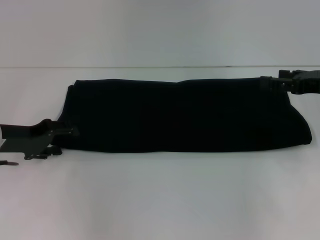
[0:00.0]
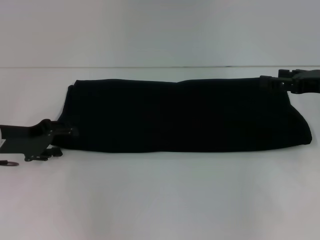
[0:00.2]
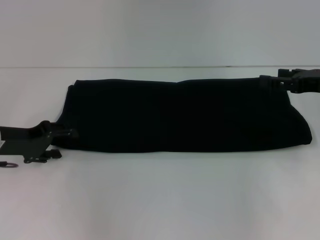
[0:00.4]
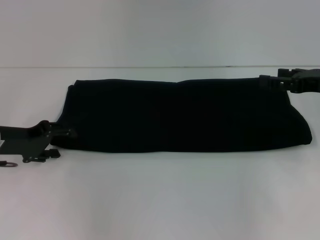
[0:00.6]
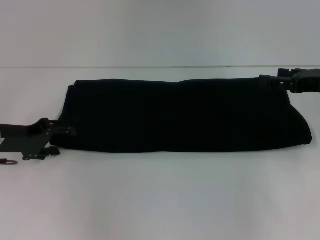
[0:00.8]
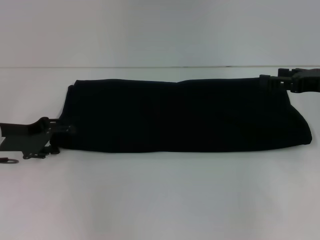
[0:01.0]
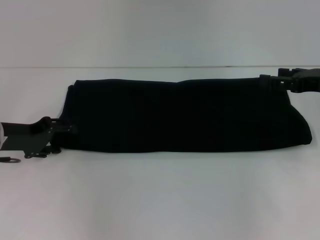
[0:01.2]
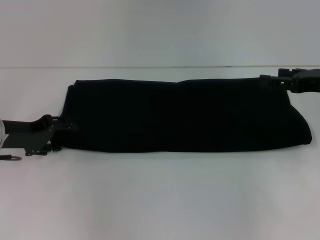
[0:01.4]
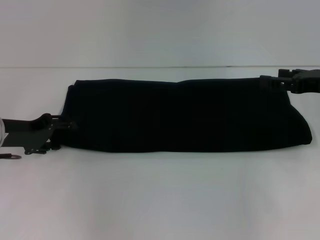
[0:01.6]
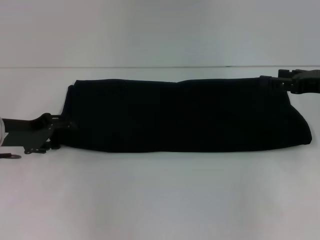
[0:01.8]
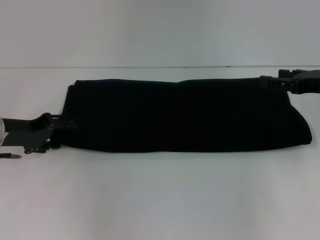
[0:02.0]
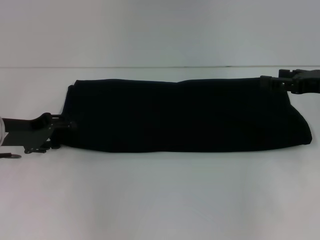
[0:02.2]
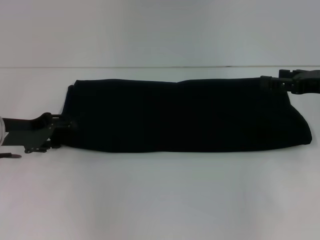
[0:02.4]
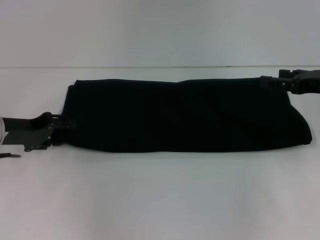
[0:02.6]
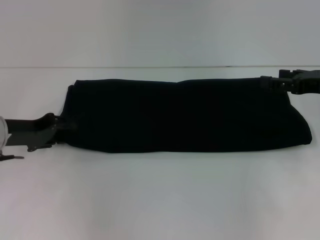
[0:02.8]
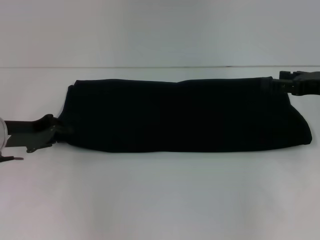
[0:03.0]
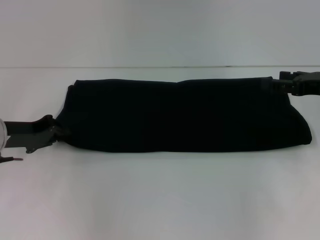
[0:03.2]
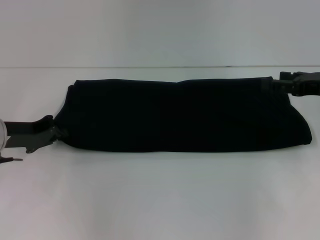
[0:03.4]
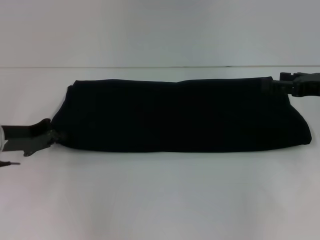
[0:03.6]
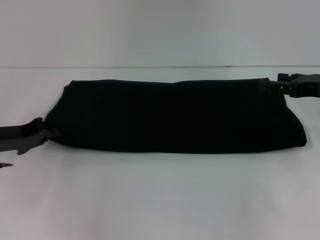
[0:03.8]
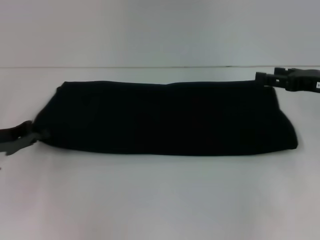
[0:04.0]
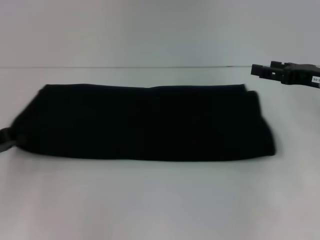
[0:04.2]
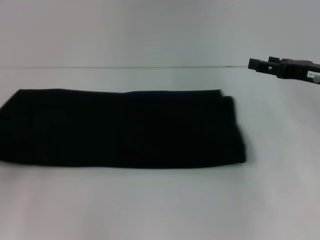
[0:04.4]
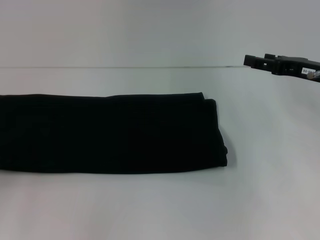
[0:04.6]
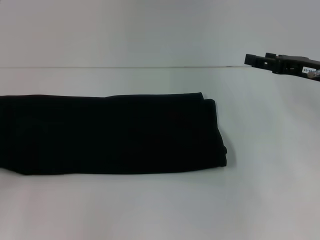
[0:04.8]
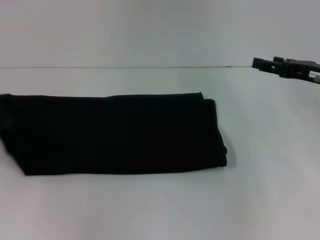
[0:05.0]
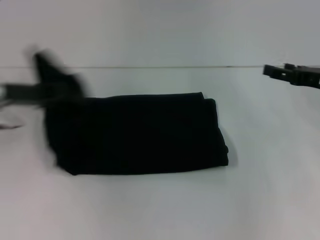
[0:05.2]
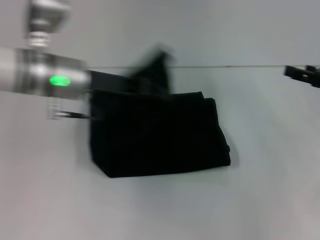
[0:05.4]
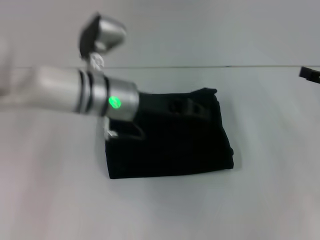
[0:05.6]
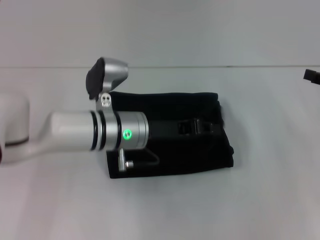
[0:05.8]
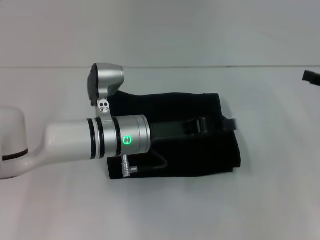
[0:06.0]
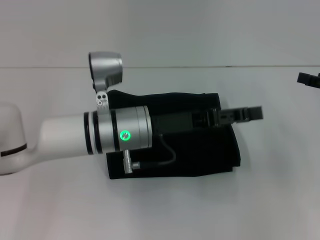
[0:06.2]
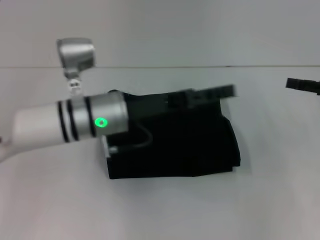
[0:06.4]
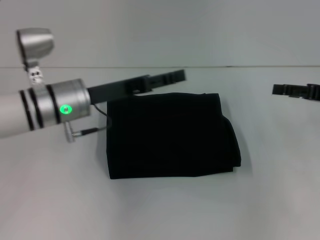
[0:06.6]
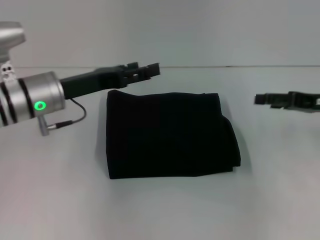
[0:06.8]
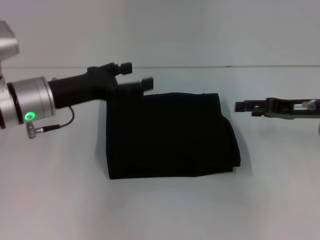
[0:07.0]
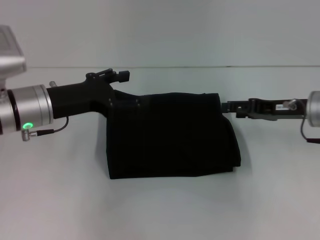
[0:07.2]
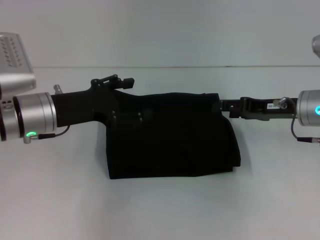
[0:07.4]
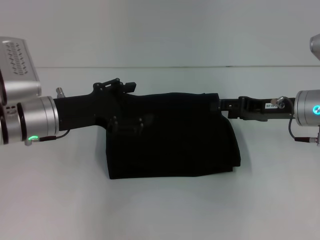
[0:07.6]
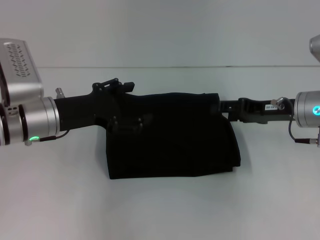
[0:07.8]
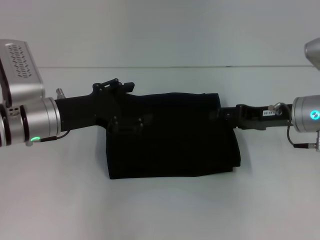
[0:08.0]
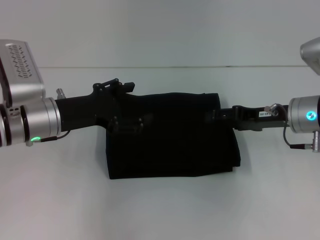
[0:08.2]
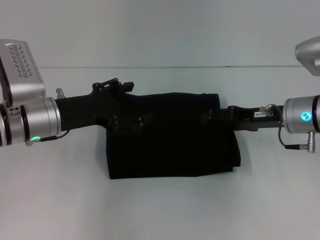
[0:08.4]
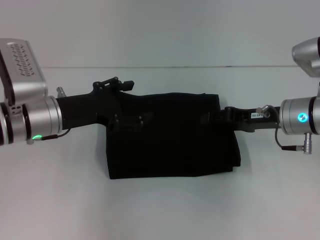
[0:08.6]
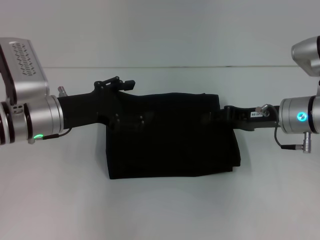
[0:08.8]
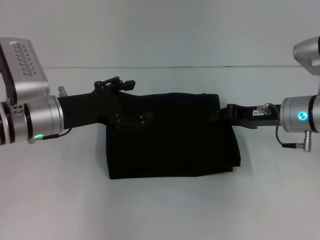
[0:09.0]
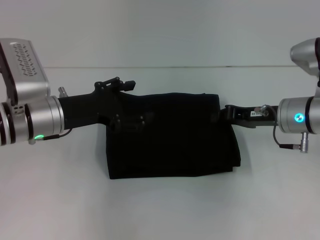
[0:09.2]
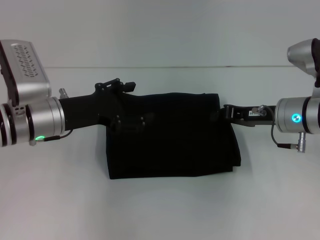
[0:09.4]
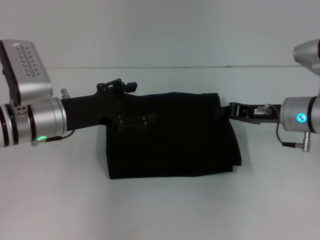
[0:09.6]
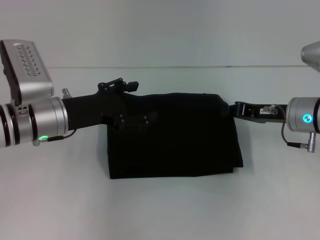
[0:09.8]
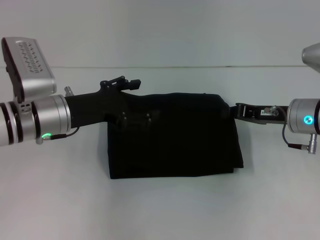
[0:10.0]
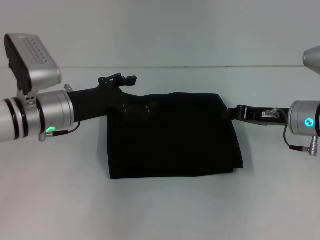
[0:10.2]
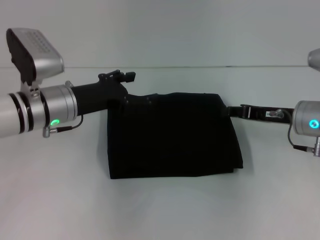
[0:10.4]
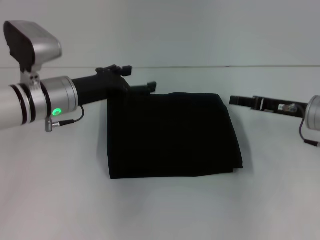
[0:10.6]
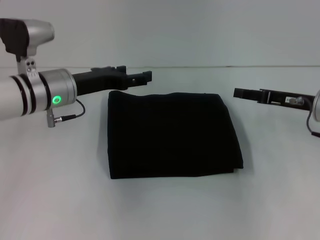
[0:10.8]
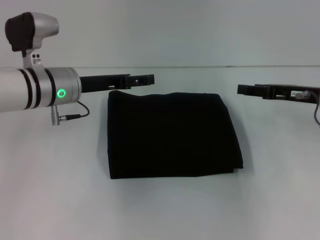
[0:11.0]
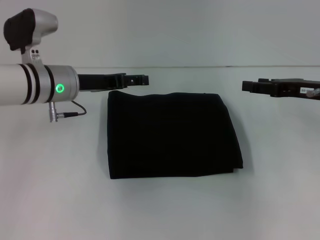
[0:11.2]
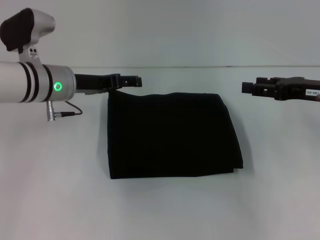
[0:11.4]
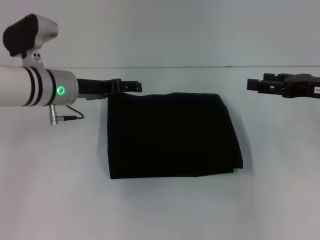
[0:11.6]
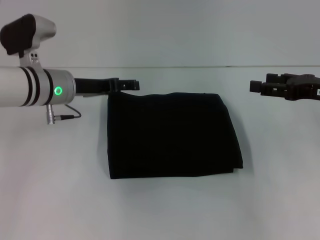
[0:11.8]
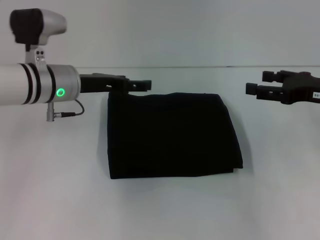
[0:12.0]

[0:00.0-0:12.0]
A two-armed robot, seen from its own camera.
Step, 0:00.0 to 0:06.4: Fold the clothes with your left hand.
0:00.0 to 0:03.0: Both grippers stay about where they are.
0:03.0 to 0:04.4: The left gripper shifts some 10 cm to the left and backward, and closes.
0:04.4 to 0:06.0: The right gripper travels to the right by roughly 10 cm; the left gripper travels to the right by approximately 30 cm.
0:06.0 to 0:07.6: Both grippers travel together to the left, some 15 cm. The left gripper opens.
0:07.6 to 0:09.0: There are only small adjustments of the grippers.
0:09.0 to 0:10.4: The right gripper closes its fingers.
0:10.4 to 0:12.0: The right gripper moves to the right and upward, roughly 10 cm, and opens.

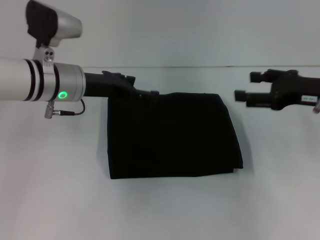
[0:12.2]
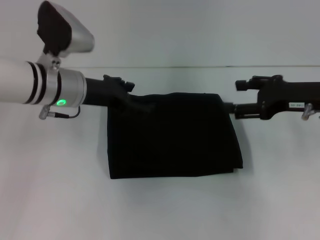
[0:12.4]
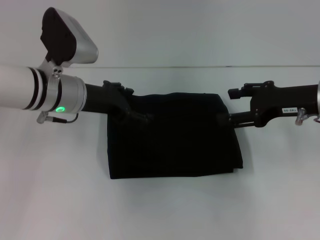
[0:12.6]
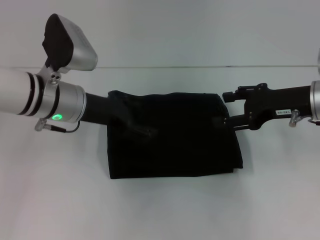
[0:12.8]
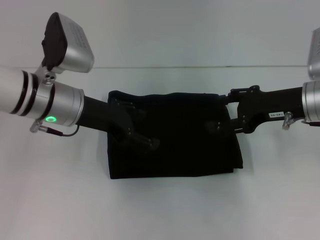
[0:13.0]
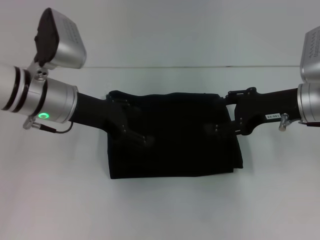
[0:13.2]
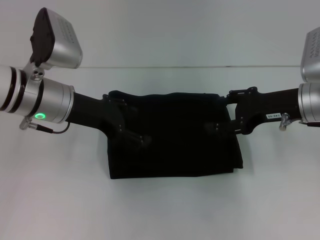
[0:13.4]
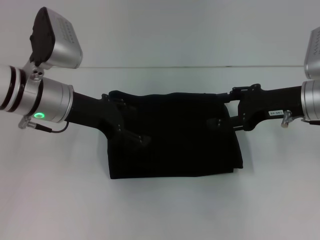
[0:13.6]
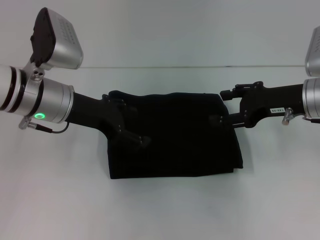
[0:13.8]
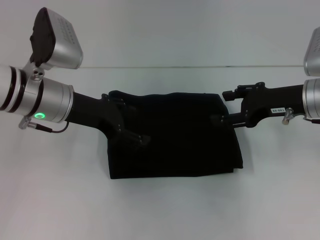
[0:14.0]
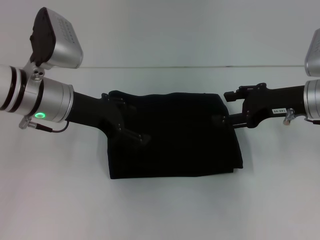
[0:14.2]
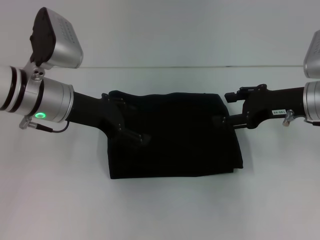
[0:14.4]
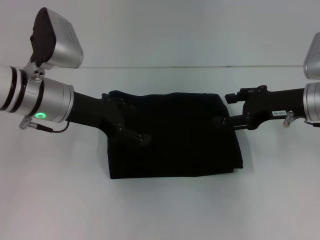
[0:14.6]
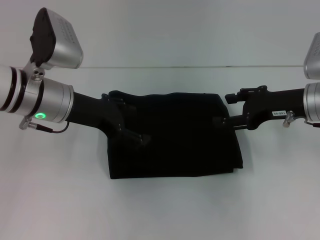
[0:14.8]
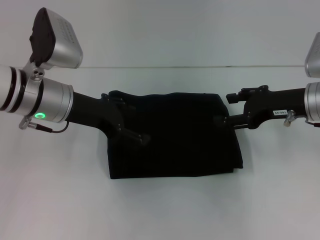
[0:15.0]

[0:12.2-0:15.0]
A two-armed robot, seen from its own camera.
0:13.6 to 0:15.0: The grippers stay close to where they were, moving slightly.

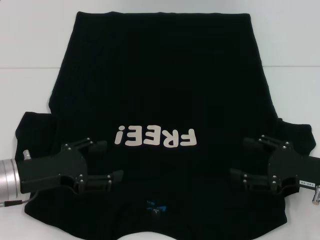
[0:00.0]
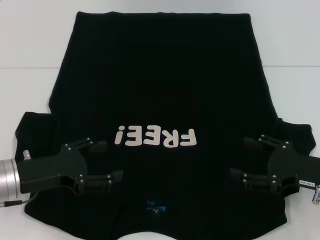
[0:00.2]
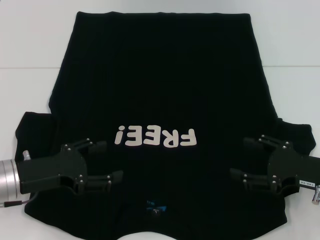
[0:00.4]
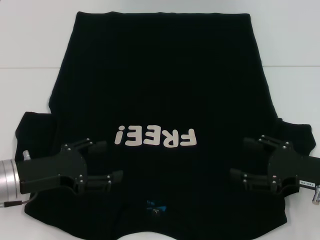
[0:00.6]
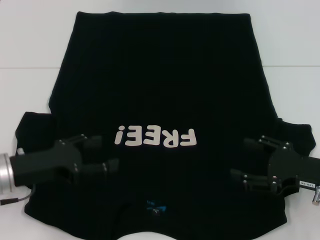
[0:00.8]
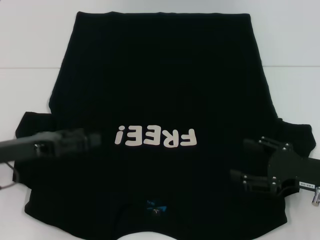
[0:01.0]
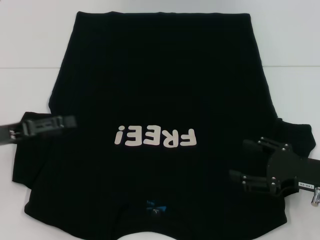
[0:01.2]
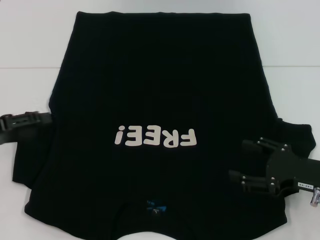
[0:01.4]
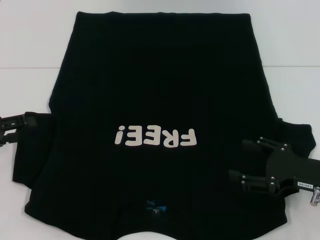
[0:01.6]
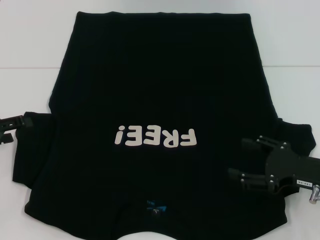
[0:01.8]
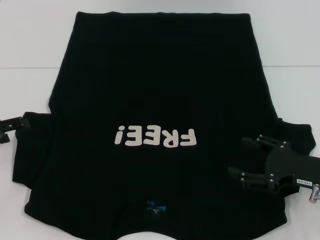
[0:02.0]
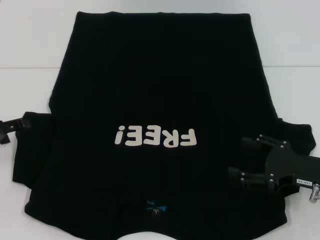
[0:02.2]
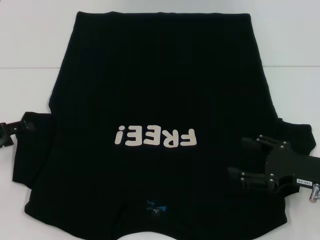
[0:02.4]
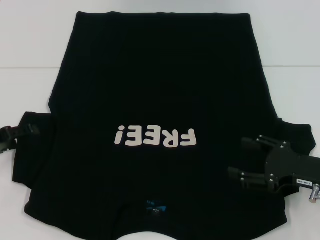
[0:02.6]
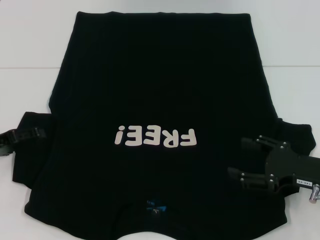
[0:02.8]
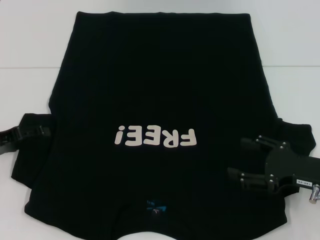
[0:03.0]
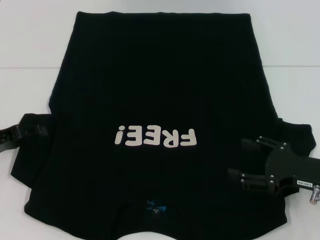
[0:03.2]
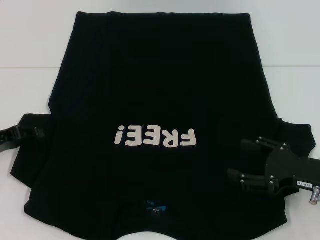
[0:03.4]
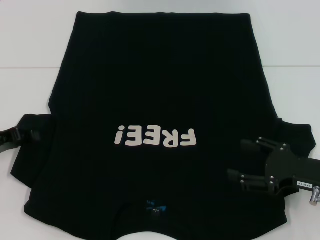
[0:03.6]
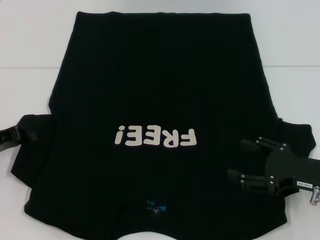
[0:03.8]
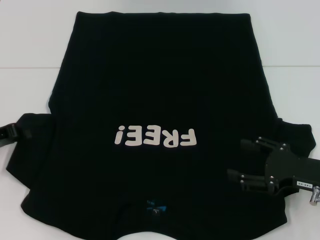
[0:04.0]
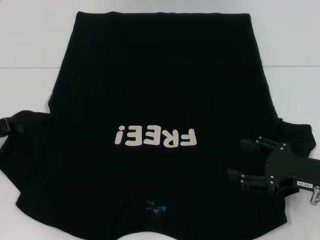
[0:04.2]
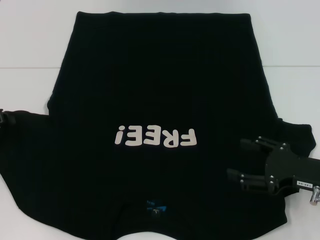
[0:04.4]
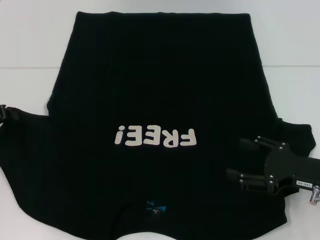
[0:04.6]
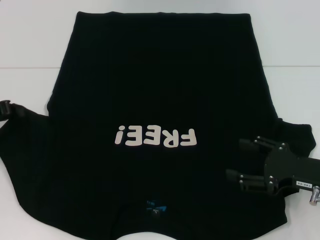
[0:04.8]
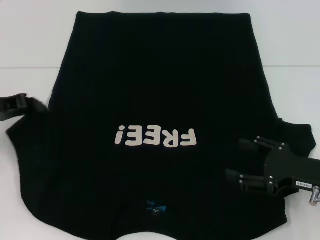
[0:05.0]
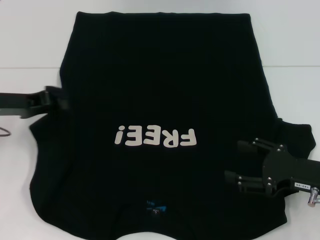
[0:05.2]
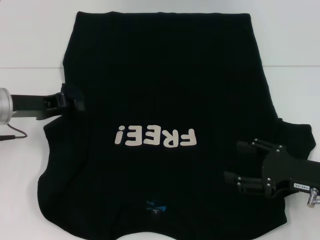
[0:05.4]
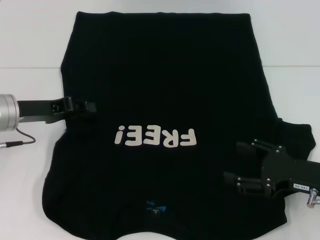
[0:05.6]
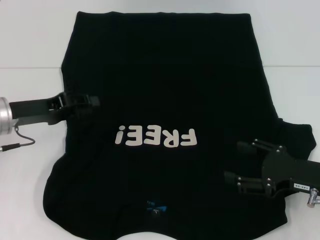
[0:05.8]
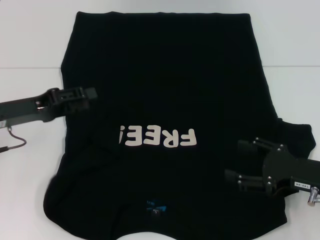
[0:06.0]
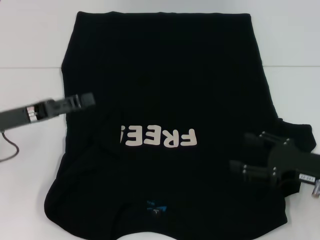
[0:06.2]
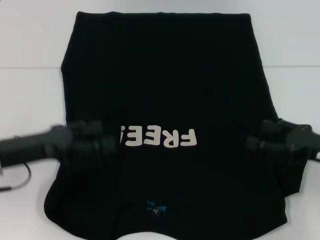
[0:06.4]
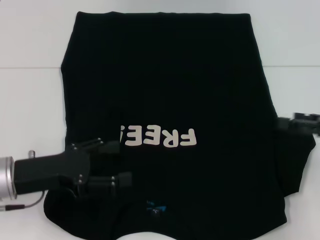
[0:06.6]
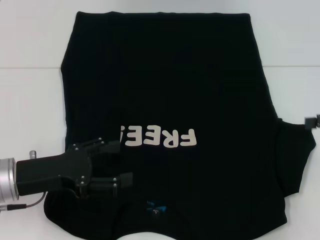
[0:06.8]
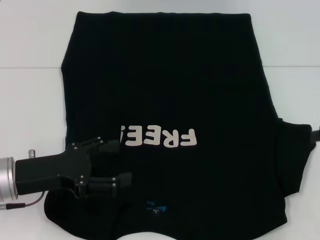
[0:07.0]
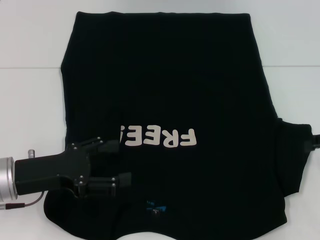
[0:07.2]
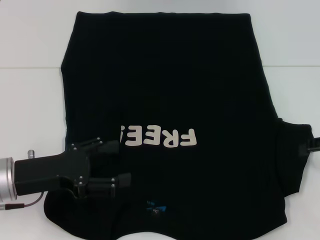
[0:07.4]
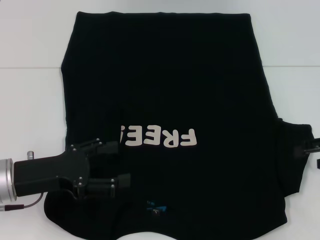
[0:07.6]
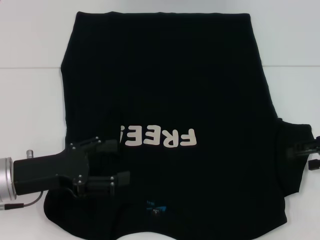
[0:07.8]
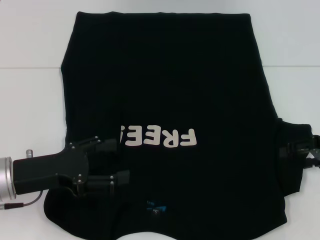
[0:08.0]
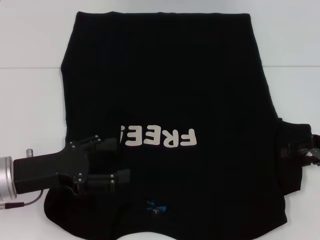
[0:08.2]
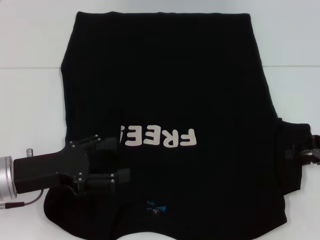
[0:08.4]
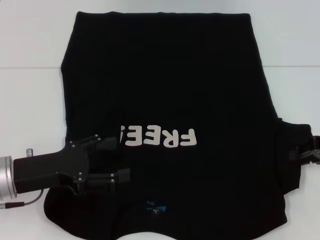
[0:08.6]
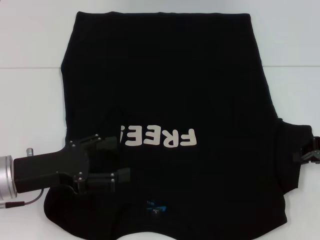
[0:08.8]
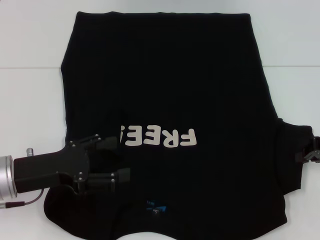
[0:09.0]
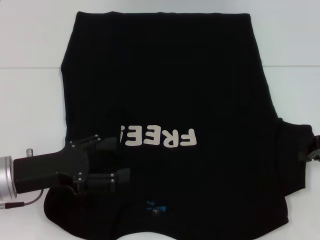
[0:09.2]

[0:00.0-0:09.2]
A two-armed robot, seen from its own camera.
Step, 0:00.0 to 0:06.6: Fold the bottom left sleeve with your left hand.
0:00.0 to 0:01.6: The left gripper travels to the left by about 10 cm.
0:01.6 to 0:03.0: The grippers stay close to where they were, moving slightly.
0:03.0 to 0:04.6: The left gripper closes up.
0:04.6 to 0:06.2: The left gripper is displaced to the right by roughly 5 cm, and opens up.
0:06.2 to 0:07.6: The left gripper ends up some 5 cm from where it was, while the right gripper goes some 10 cm to the right, upward and forward.
0:07.6 to 0:09.2: The right gripper closes up.
